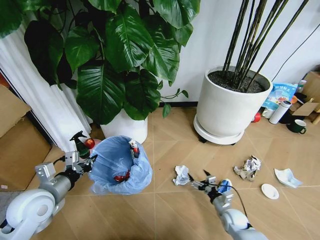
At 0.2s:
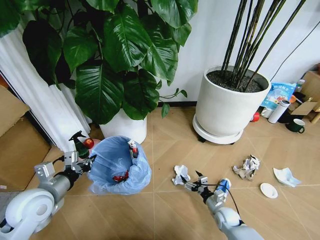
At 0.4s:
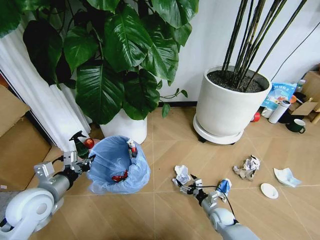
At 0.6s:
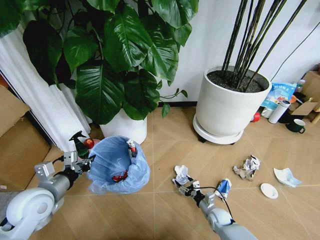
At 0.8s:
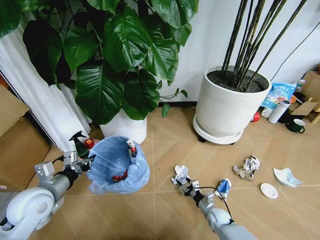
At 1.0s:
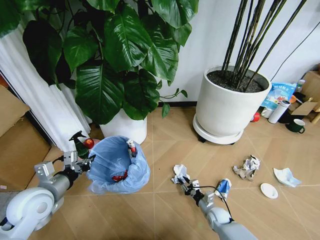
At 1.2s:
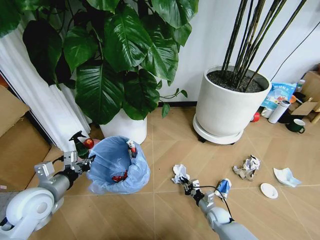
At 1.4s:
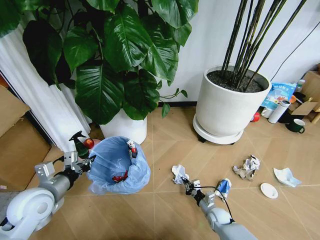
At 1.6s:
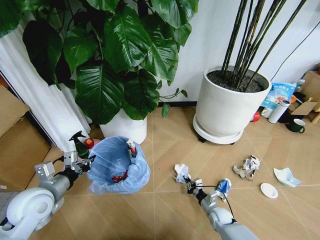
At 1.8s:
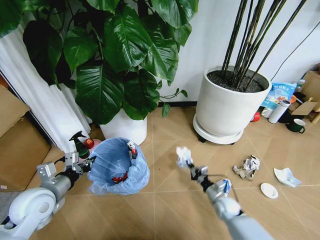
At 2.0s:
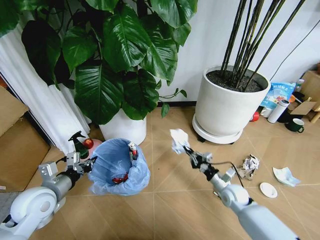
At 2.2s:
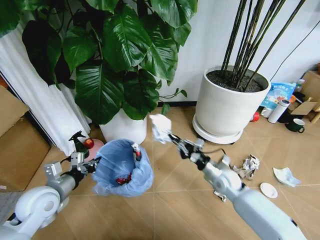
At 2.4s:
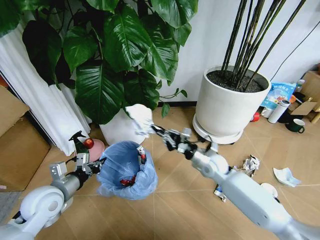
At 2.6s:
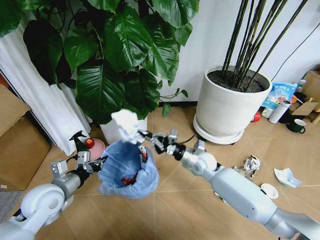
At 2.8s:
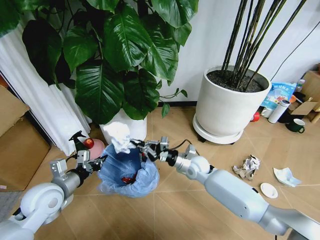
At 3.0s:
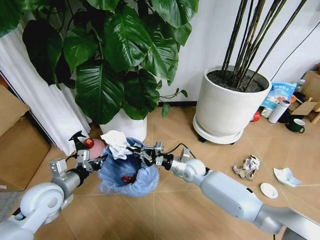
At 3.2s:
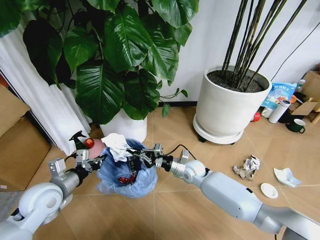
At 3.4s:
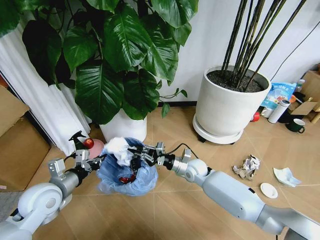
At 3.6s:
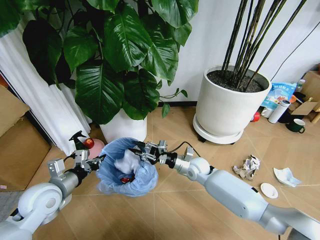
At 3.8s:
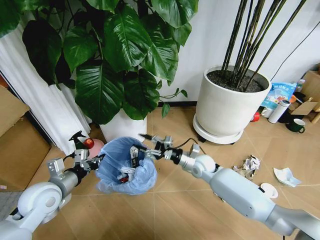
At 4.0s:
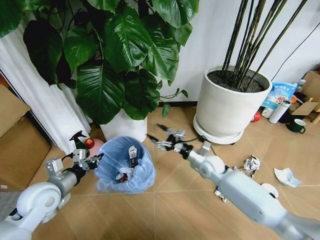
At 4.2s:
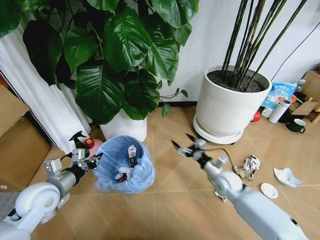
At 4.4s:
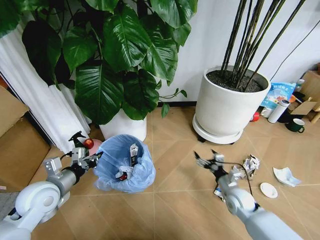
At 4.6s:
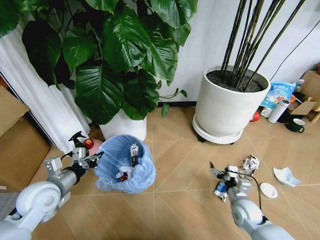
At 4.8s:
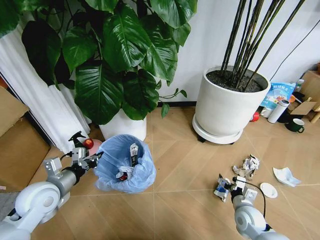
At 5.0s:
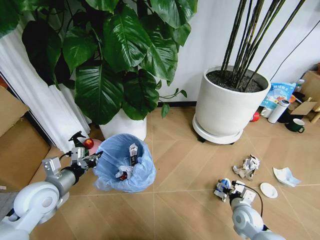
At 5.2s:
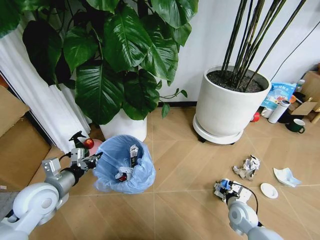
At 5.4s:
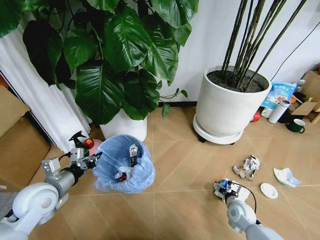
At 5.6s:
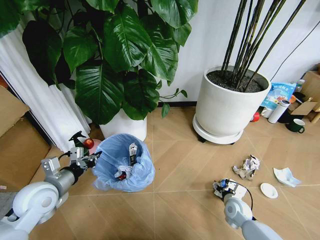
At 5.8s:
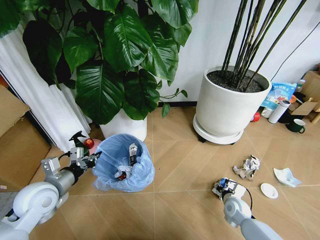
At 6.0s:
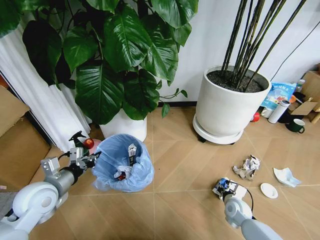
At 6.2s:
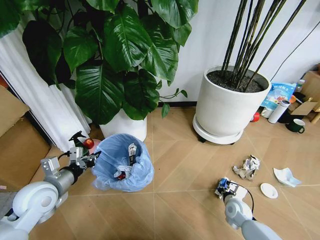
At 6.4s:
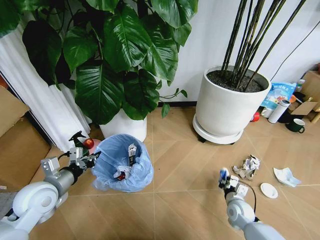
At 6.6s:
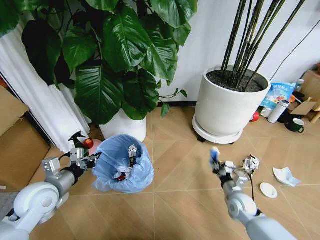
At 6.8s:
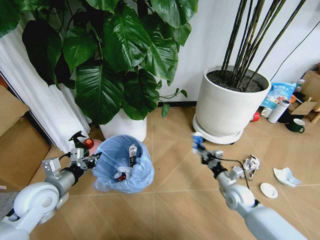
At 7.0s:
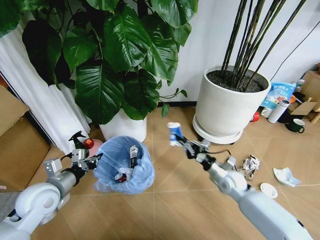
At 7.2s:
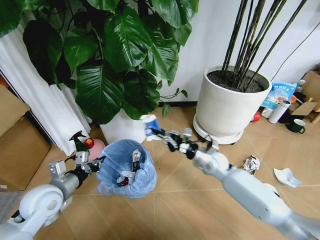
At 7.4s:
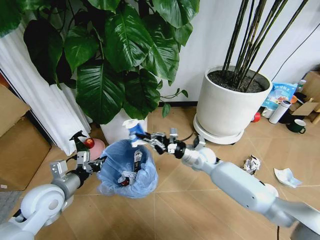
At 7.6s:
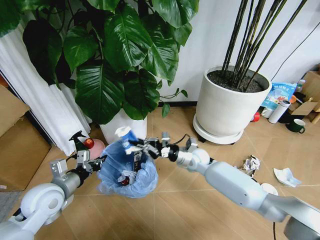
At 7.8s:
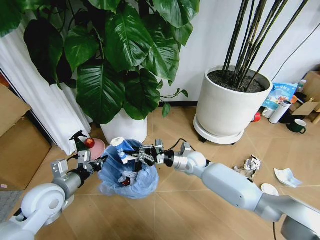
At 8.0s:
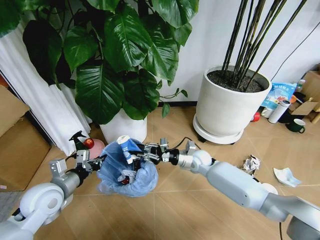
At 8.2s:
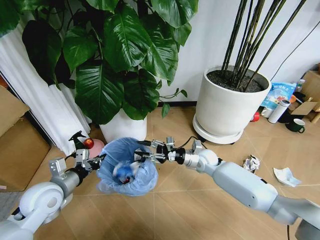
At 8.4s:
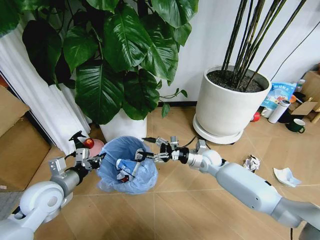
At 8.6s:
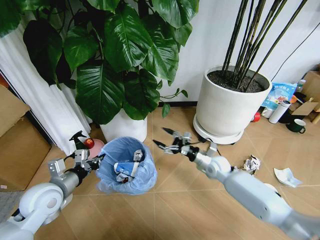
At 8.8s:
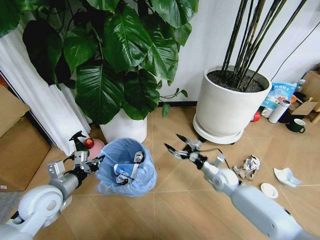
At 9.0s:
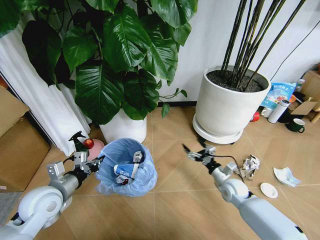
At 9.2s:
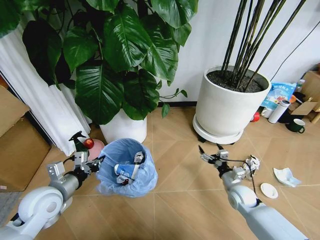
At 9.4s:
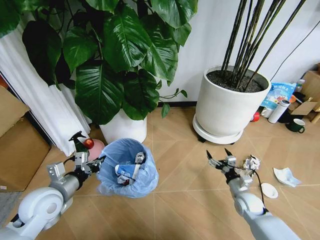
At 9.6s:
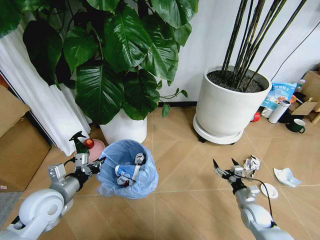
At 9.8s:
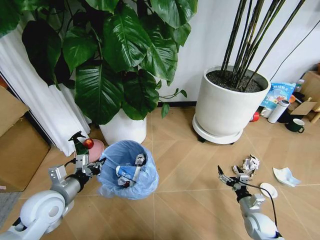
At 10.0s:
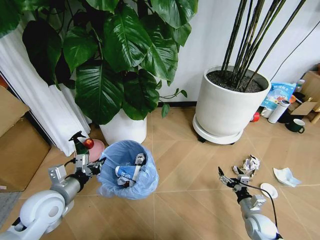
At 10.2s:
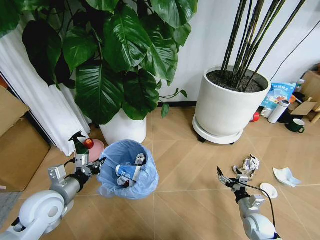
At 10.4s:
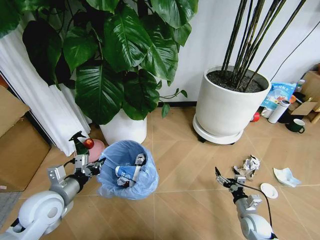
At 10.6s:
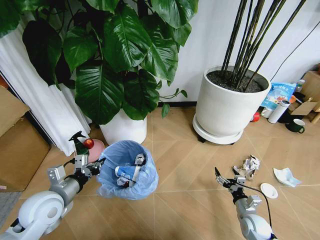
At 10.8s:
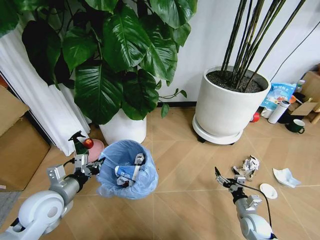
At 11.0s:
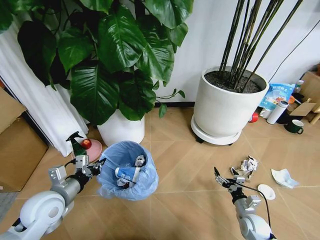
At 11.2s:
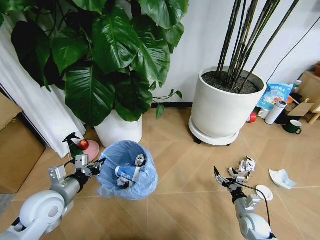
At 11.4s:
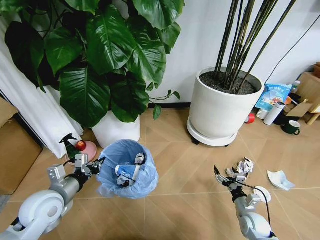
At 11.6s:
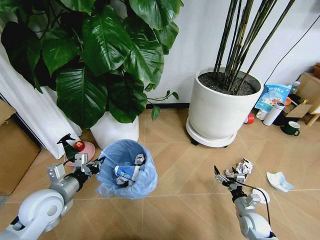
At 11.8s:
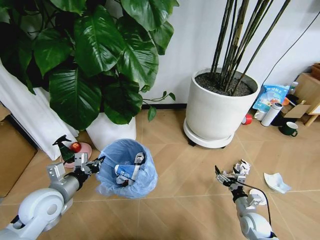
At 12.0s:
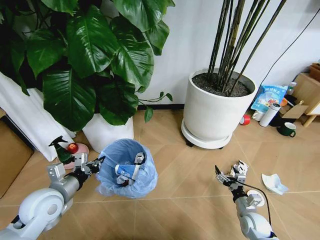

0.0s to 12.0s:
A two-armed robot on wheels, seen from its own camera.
Task of the whole recording: Pick up the trash bin and place the garbage on the floor into it.
0.0s to 1.6s: The right gripper changes place by approximately 5 cm, and closes.
1.6s to 3.0s: The right gripper goes roughly 25 cm upward, to the left and forward.
3.0s to 4.4s: The right gripper moves to the right and backward, some 20 cm, and opens its fingers.
4.4s to 6.0s: The right gripper goes some 5 cm downward, and closes up.
6.0s to 7.6s: The right gripper shifts roughly 25 cm to the left, forward and upward.
7.6s to 9.0s: The right gripper moves to the right, backward and downward, approximately 20 cm, and opens up.
9.0s to 10.4s: The right gripper travels backward, downward and to the right by approximately 15 cm.

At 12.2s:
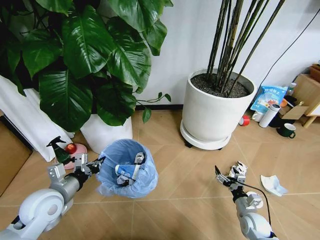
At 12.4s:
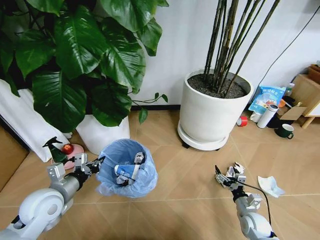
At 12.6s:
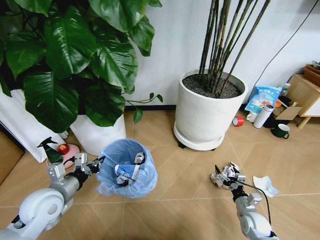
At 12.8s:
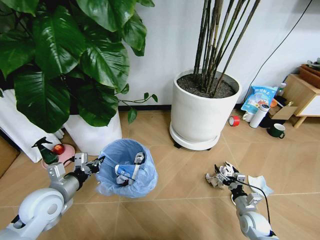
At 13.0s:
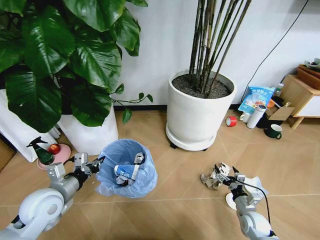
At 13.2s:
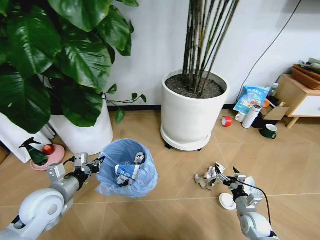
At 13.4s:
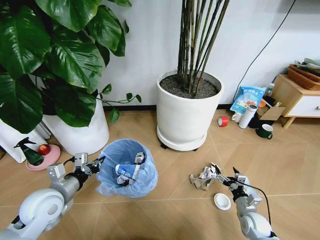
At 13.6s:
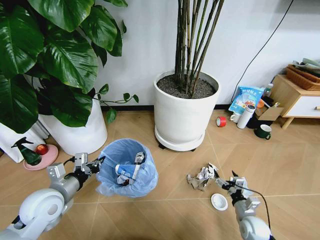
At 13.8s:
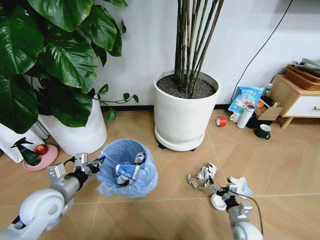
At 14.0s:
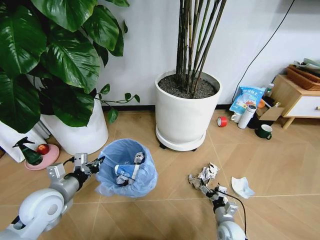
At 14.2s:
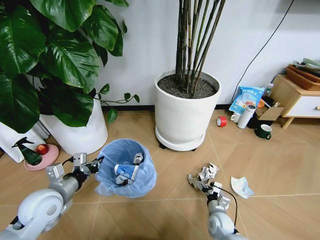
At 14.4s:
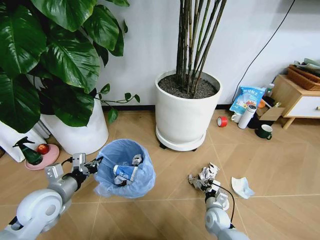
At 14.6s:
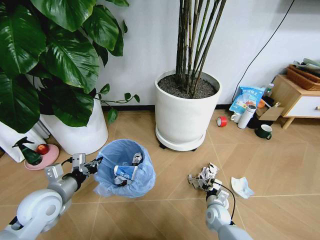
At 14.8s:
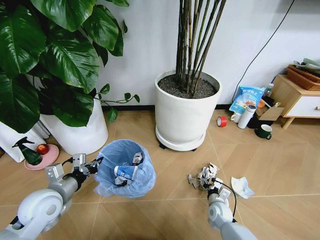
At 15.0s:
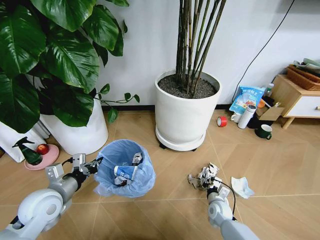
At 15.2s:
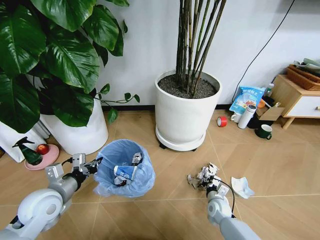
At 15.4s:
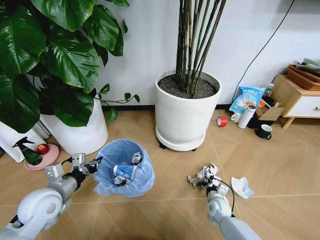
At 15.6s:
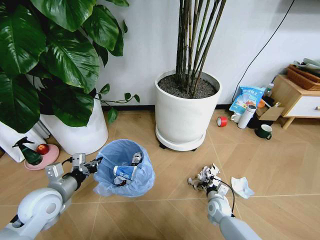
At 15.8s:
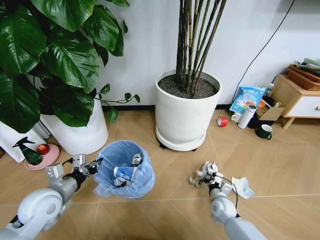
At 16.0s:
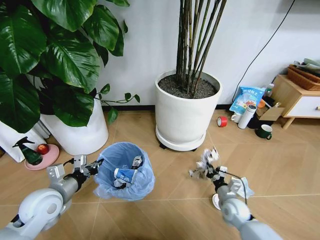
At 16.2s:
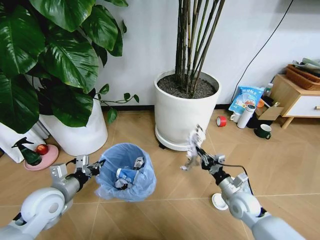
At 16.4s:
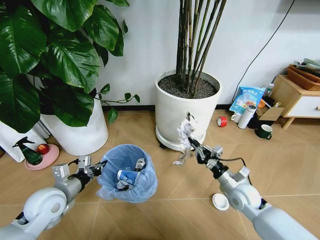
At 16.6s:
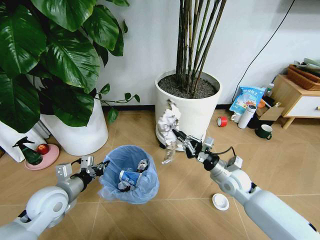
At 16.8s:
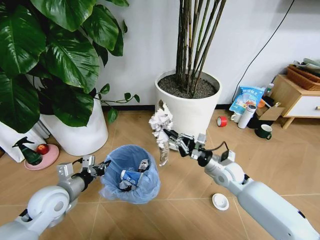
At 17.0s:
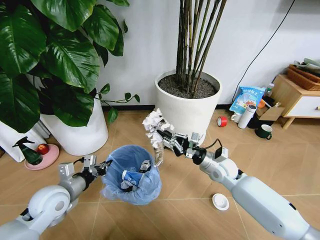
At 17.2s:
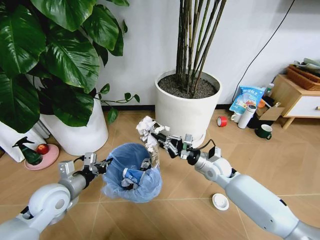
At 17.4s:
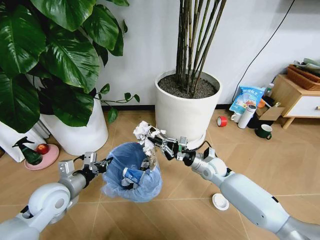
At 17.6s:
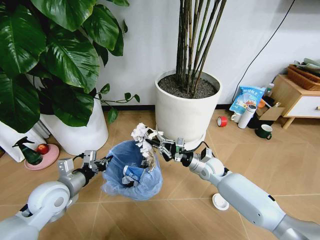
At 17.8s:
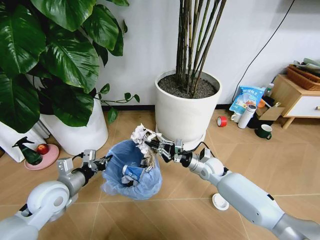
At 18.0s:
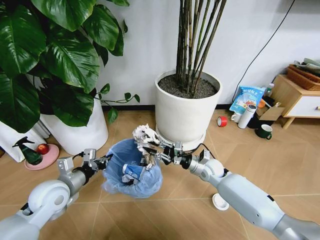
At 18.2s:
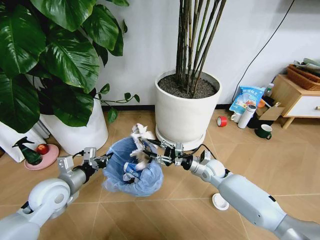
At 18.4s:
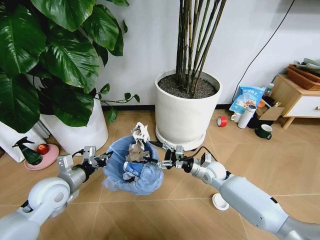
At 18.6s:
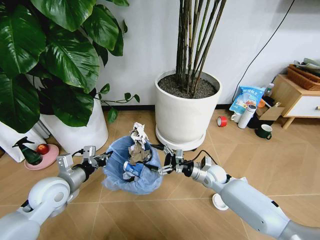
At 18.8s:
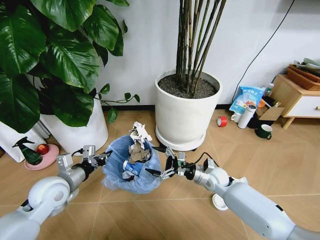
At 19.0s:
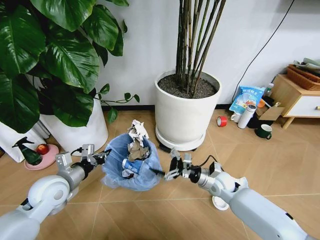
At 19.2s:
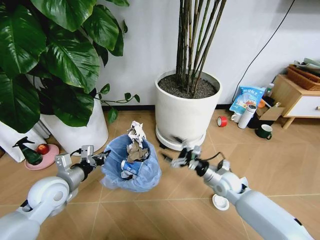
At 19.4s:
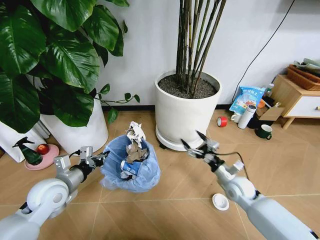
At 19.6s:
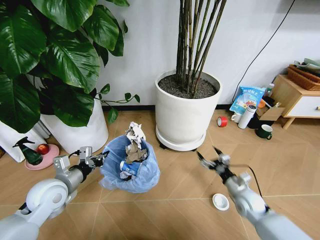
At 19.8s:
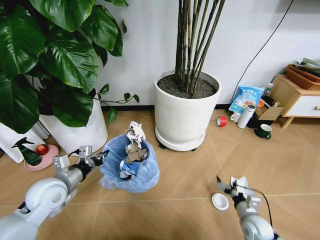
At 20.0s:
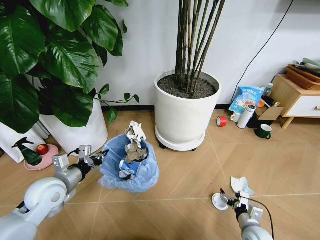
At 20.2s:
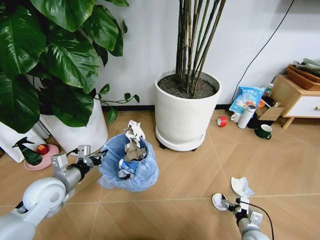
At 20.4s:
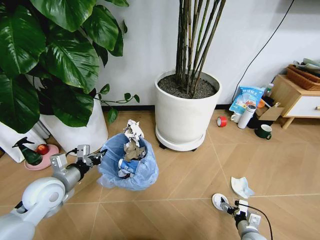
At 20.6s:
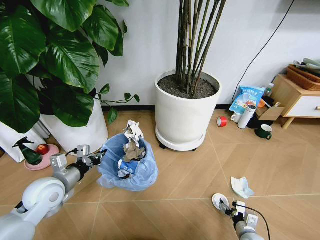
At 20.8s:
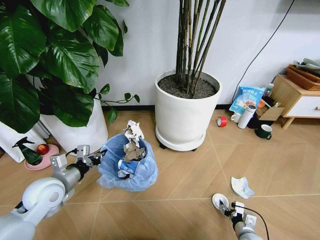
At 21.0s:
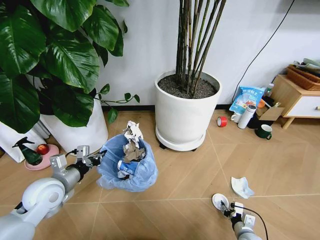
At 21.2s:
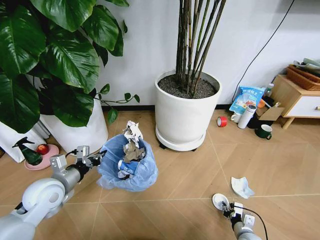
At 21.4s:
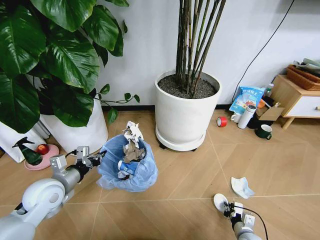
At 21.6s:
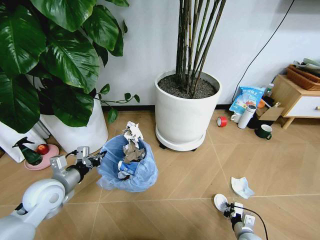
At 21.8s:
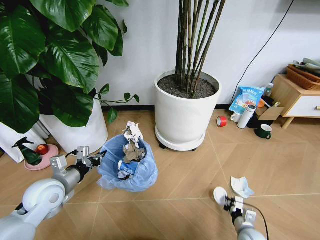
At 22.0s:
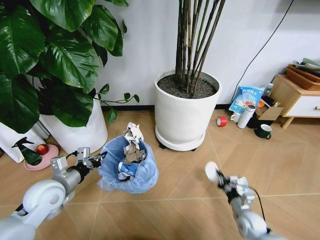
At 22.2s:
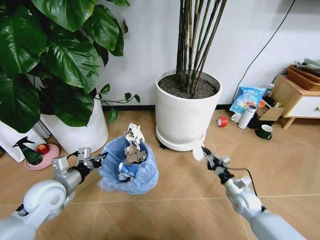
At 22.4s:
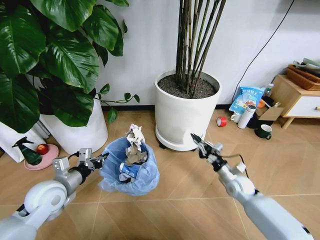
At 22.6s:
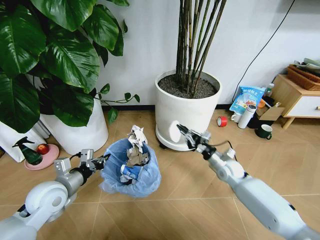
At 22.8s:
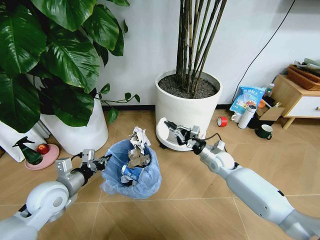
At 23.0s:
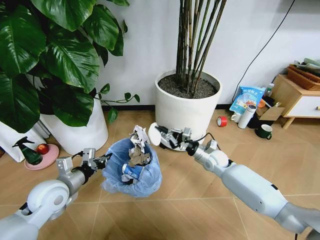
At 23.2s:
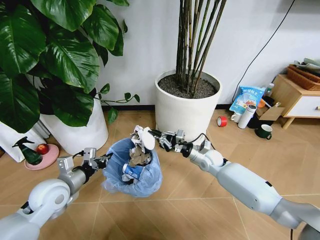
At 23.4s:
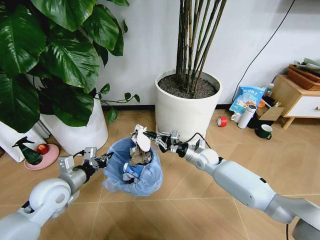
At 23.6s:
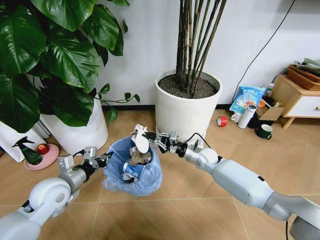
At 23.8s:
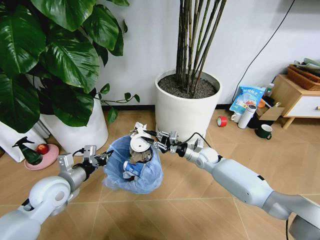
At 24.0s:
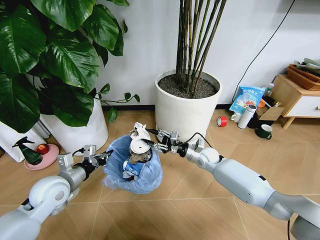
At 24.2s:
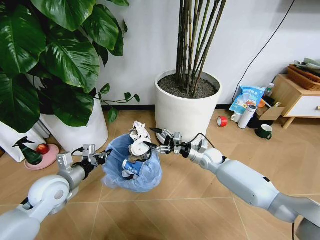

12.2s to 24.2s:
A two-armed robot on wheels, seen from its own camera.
Task of the whole recording: Pick up the trash bin and place the garbage on the floor into it.
12.2s to 13.8s: The right gripper moves approximately 5 cm.
13.8s to 15.2s: The right gripper shifts approximately 10 cm forward and to the left, and closes up.
15.2s to 16.6s: The right gripper heads upward, covering roughly 20 cm.
16.6s to 18.2s: The right gripper heads forward and to the left, covering some 10 cm, and opens its fingers.
18.2s to 19.8s: The right gripper is displaced backward, to the right and downward by some 25 cm, and opens.
19.8s to 21.2s: The right gripper goes about 5 cm downward, and closes.
21.2s to 22.6s: The right gripper goes about 30 cm forward and upward.
22.6s to 24.2s: The right gripper is displaced to the left and forward by approximately 10 cm, and opens up.
